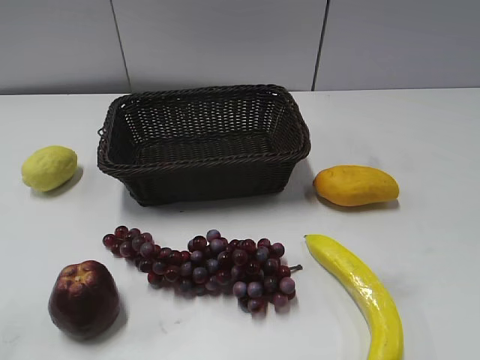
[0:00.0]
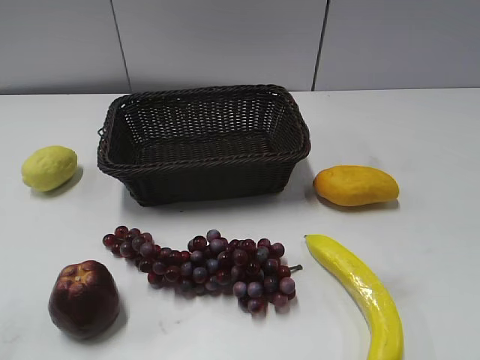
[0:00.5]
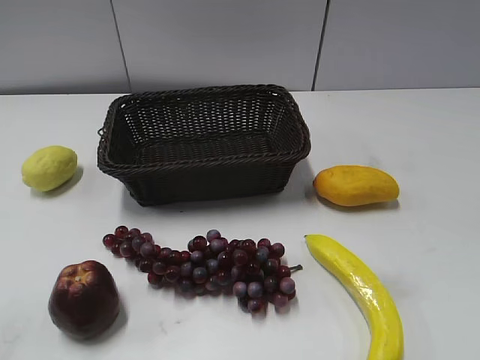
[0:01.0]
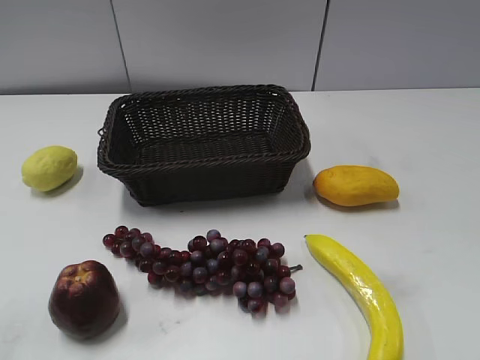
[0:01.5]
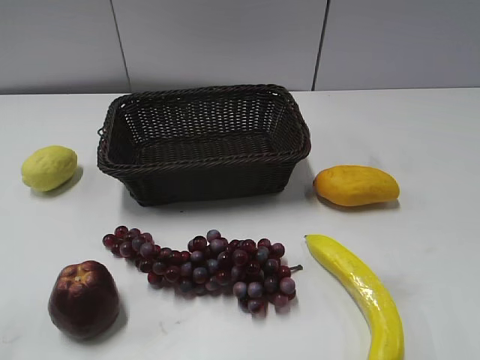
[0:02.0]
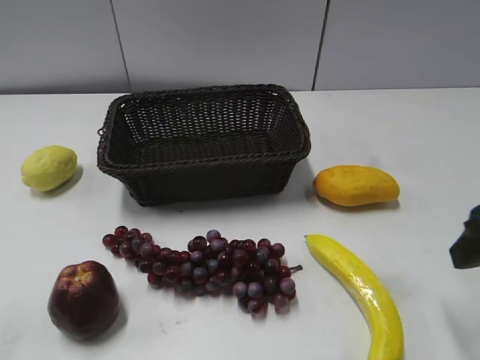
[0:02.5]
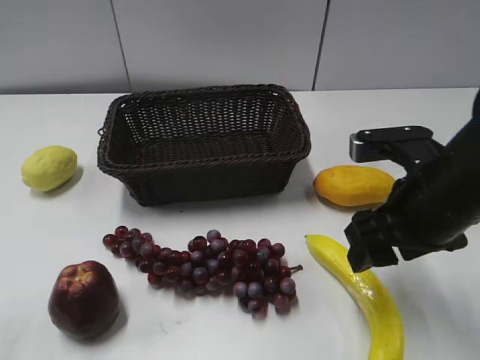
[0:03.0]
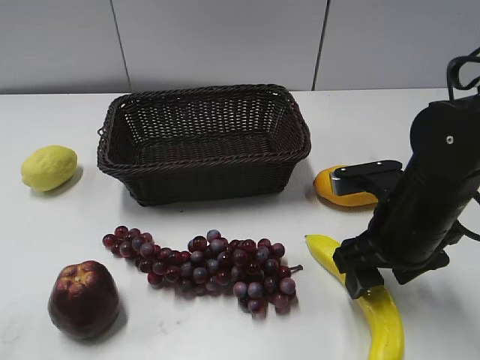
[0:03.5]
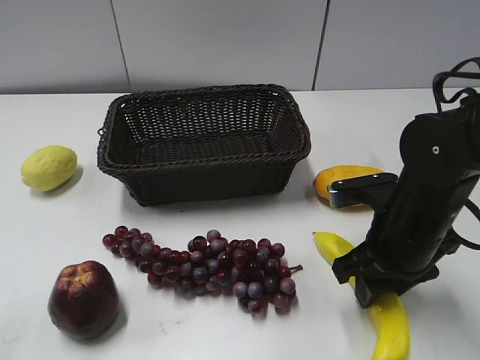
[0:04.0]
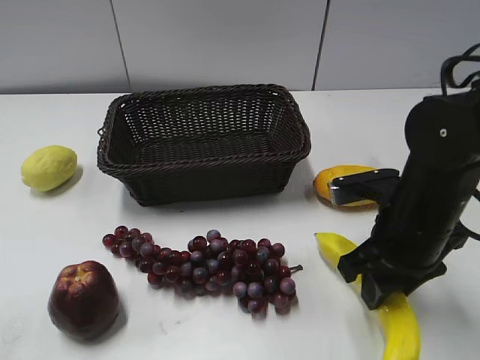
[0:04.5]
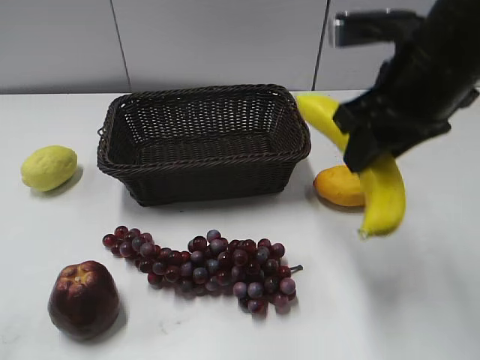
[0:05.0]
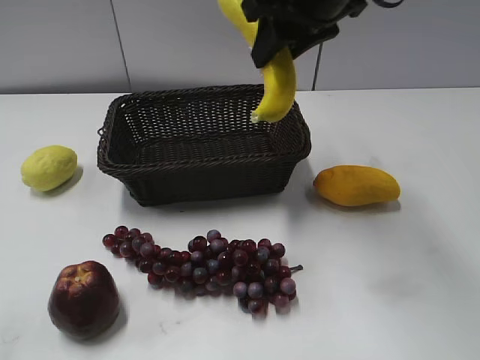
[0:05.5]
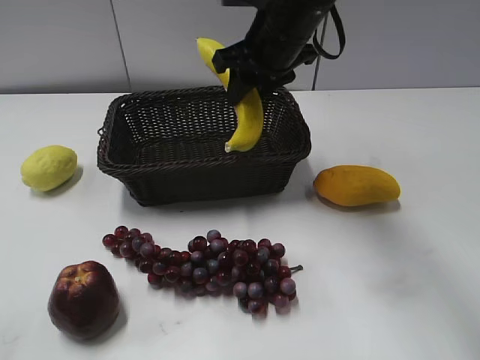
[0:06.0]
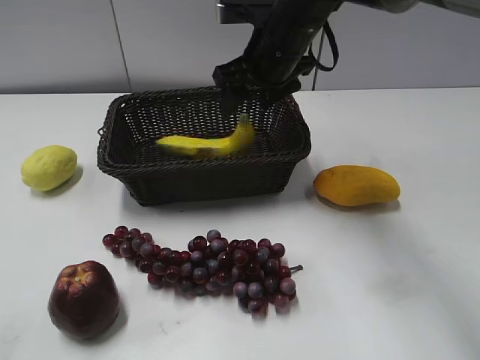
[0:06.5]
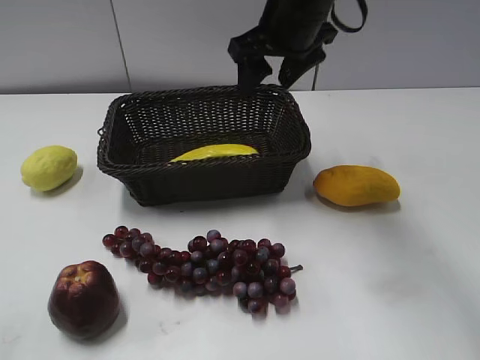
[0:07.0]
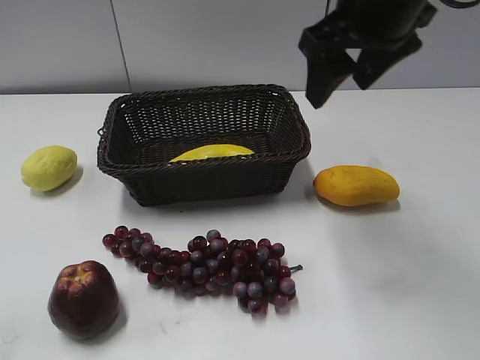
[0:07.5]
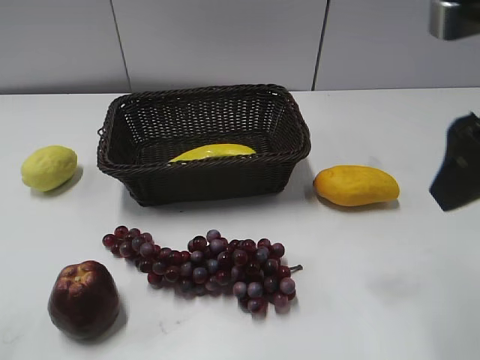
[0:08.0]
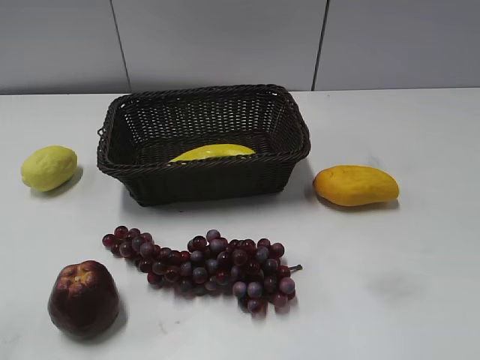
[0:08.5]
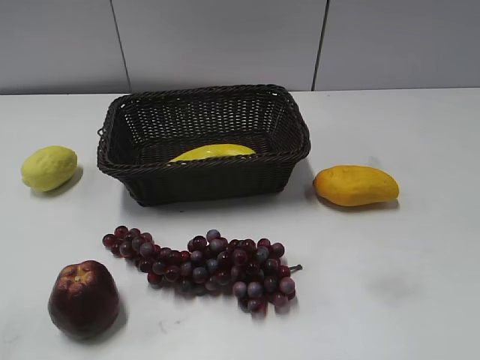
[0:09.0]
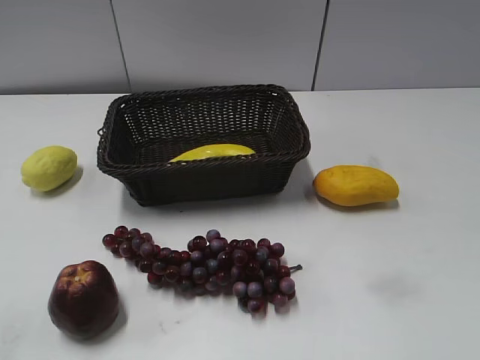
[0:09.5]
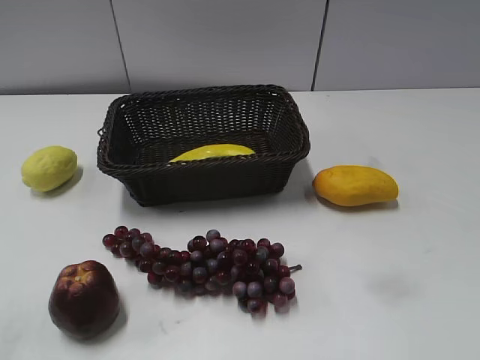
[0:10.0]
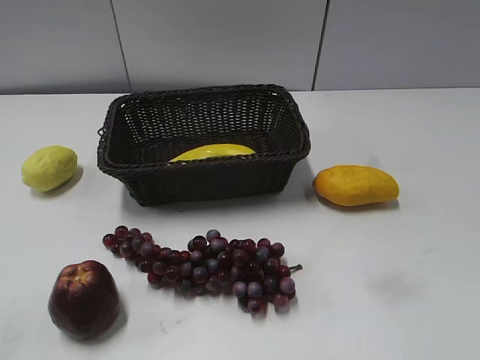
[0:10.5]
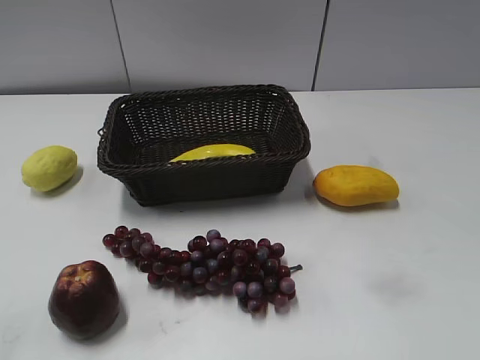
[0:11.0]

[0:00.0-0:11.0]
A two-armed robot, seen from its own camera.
Step, 0:02.5 to 0:03.5: Grasp the banana with right gripper.
Step, 0:04.5 to 0:06.5: Place the banana in the basket with right gripper.
0:02.0 to 0:03.5: The right gripper travels downward, to the left and forward by some 20 cm.
0:03.5 to 0:05.5: The right gripper is displaced upward, forward and to the left by approximately 25 cm, and closes its fingers.
0:05.5 to 0:07.5: The right gripper travels backward and to the right by some 10 cm, and opens its fingers.
0:07.5 to 0:09.0: The right gripper heads backward and to the right, covering some 30 cm.
